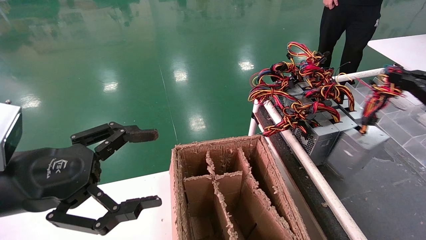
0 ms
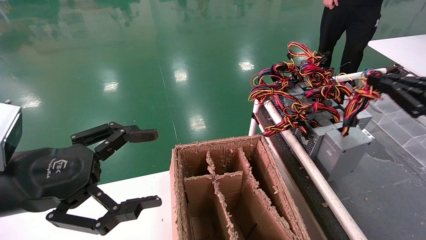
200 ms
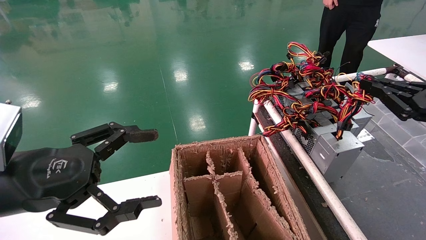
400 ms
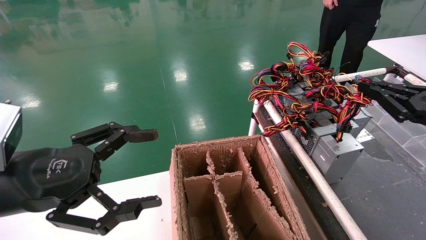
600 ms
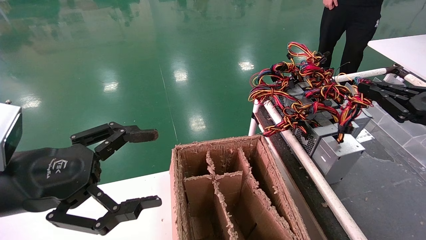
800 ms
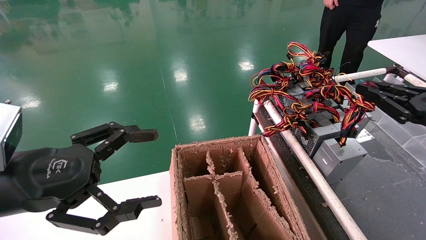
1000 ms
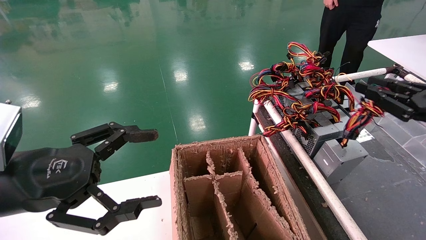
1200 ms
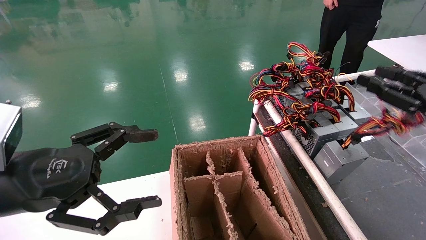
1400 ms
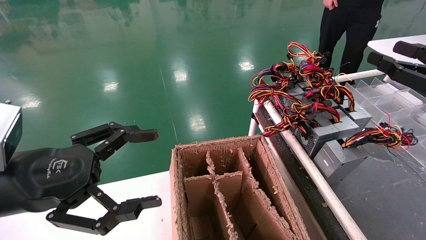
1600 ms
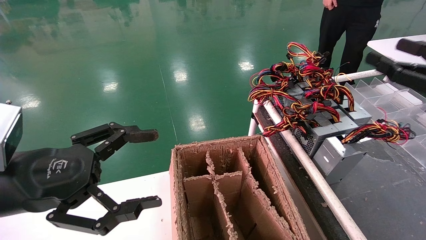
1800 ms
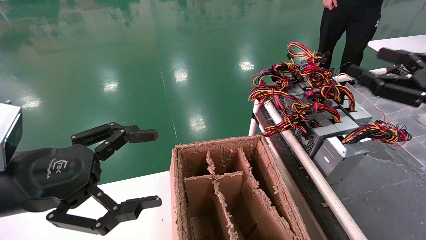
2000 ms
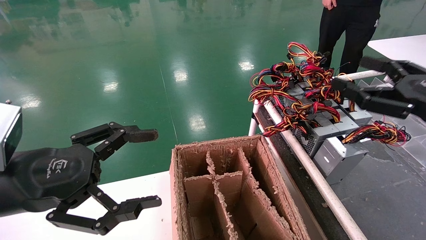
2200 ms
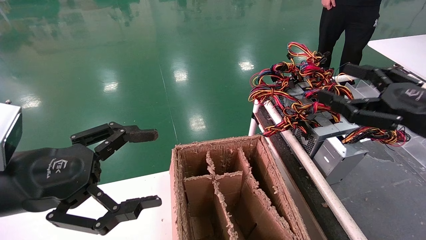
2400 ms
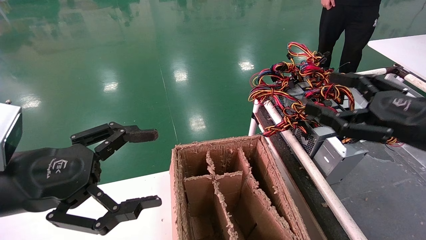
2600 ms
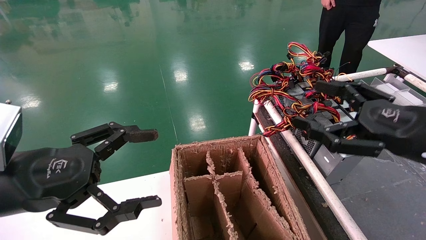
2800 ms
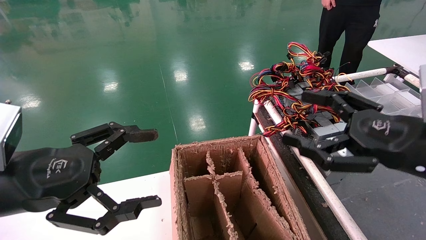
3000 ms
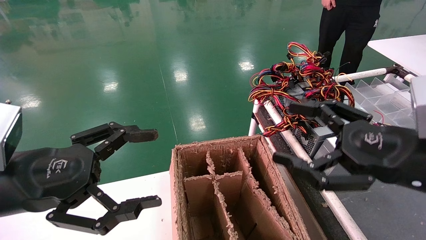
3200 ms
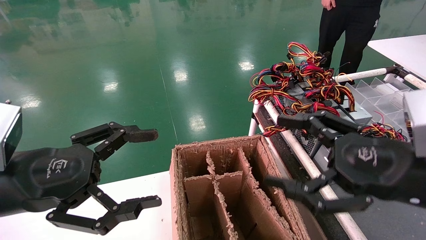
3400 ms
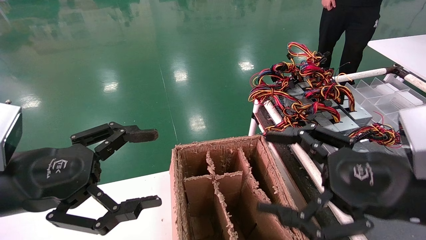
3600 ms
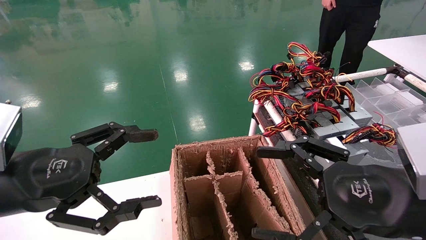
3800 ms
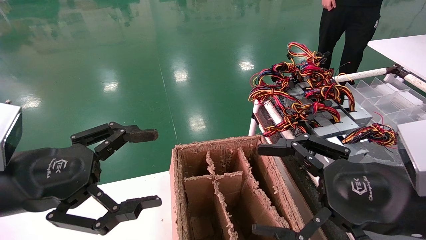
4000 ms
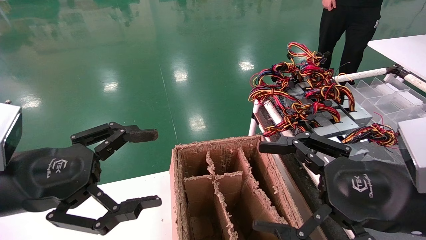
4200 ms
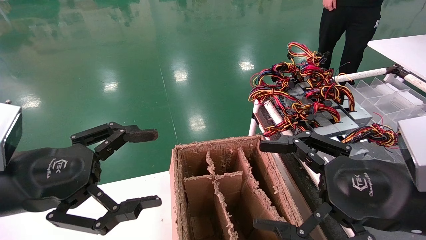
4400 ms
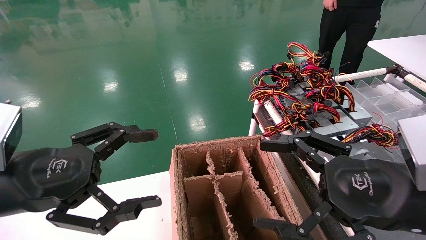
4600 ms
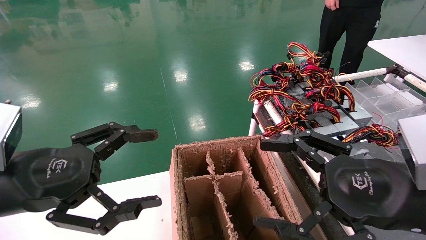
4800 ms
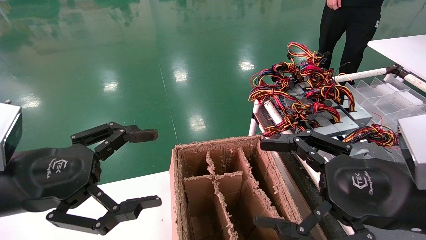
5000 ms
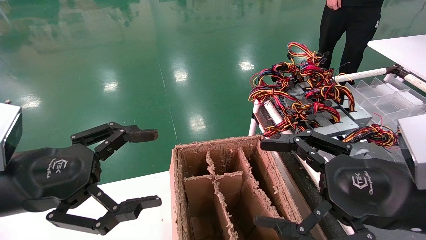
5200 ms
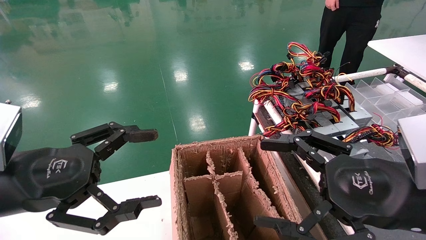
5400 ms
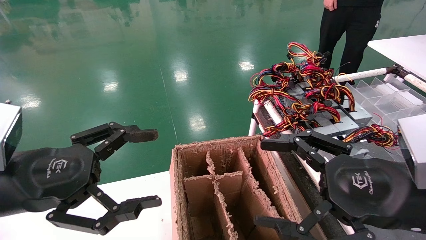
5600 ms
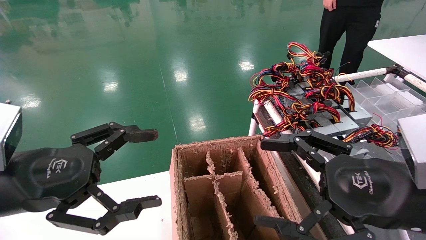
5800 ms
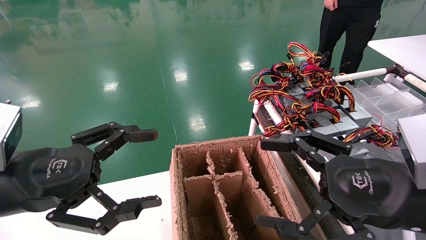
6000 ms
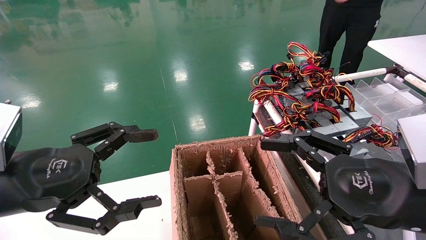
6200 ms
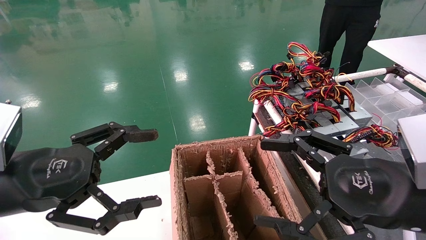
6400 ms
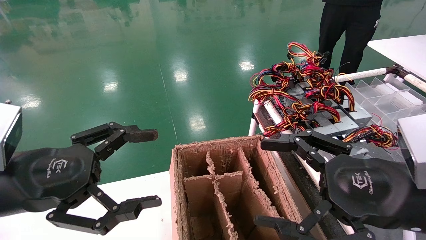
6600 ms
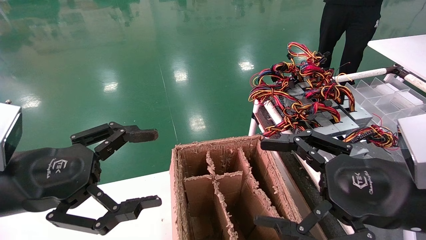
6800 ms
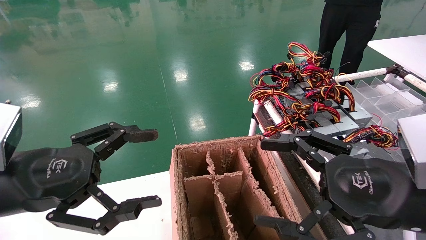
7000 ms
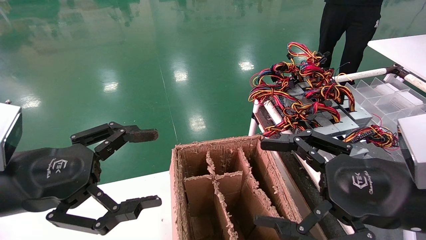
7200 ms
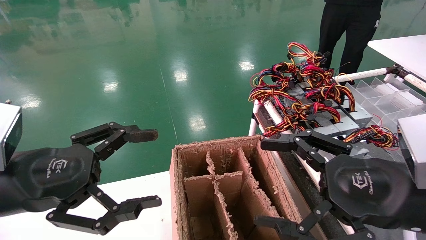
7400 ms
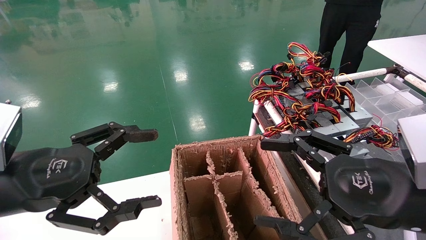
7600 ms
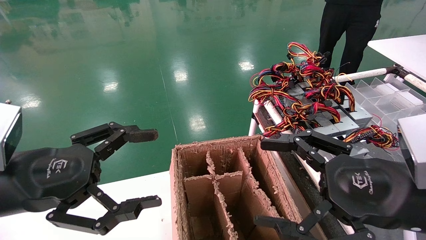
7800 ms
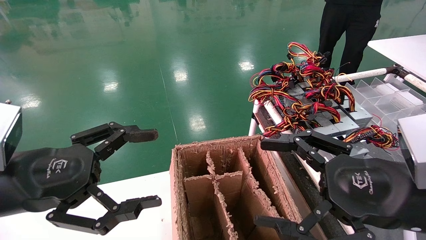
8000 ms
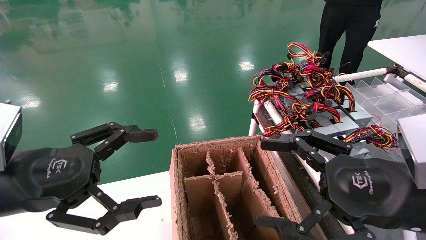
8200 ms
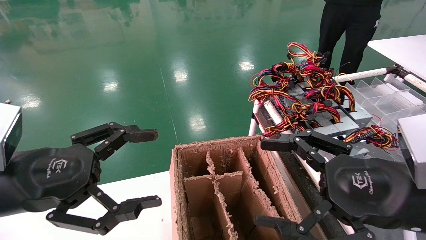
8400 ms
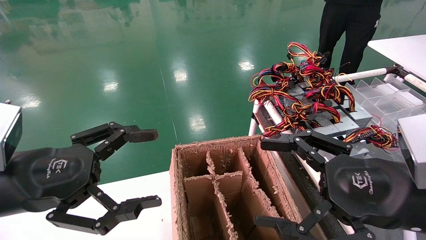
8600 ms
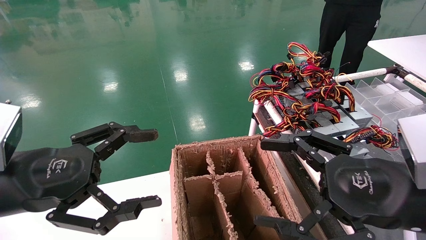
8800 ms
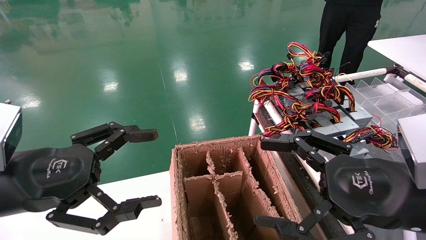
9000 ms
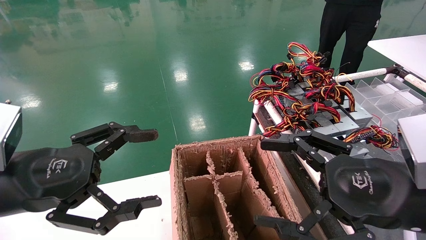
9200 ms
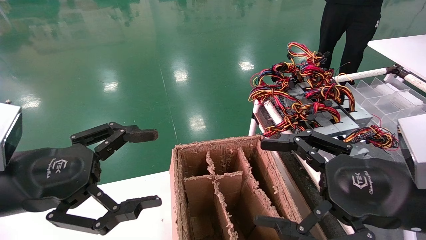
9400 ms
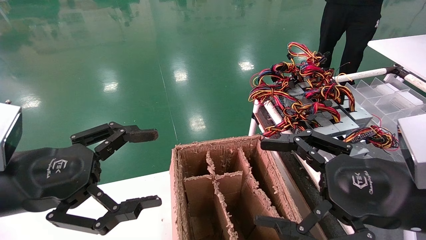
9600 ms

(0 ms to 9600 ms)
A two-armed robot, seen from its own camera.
0 ms - 1600 ms: The right gripper opens up.
1600 ms - 3200 ms: The right gripper goes approximately 15 cm to the left, and opens.
3200 ms - 4800 ms: The grippers make only small movements.
4800 ms - 9600 ms: Both grippers stay put.

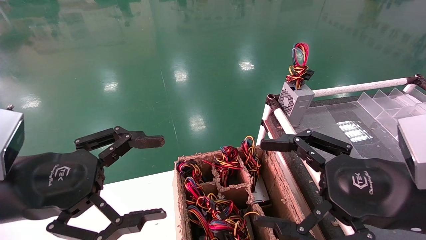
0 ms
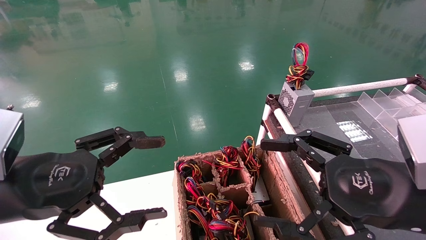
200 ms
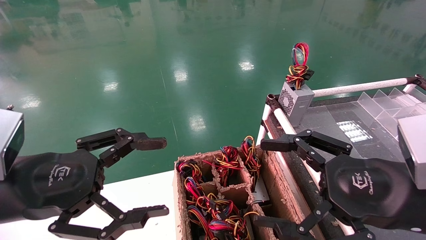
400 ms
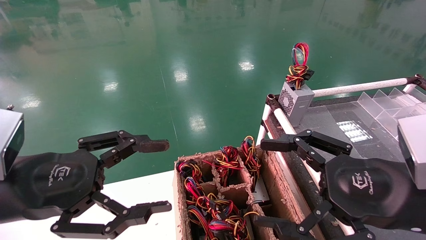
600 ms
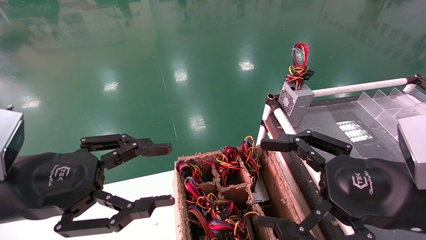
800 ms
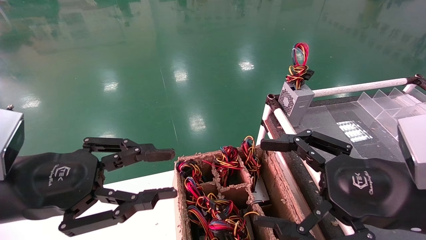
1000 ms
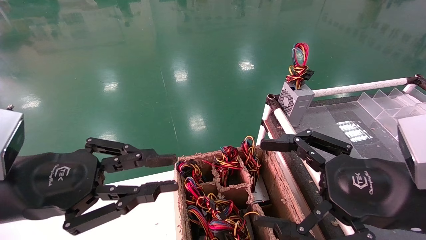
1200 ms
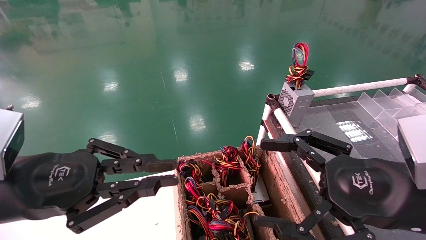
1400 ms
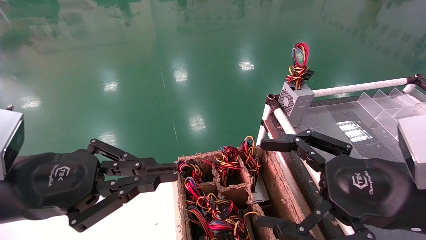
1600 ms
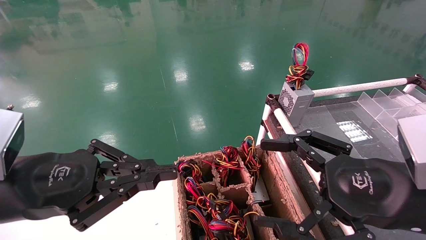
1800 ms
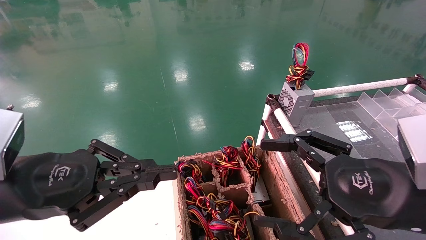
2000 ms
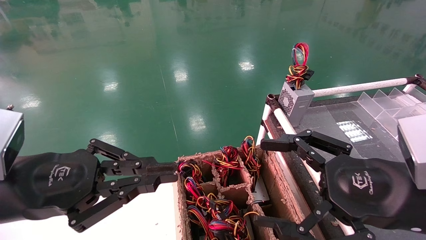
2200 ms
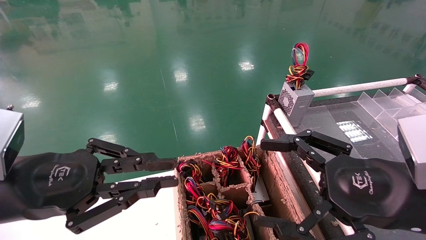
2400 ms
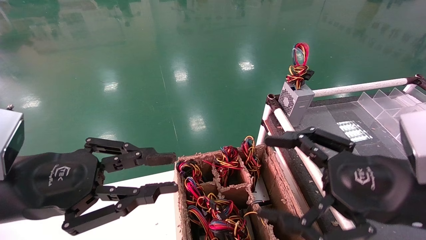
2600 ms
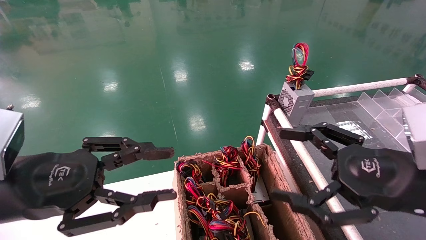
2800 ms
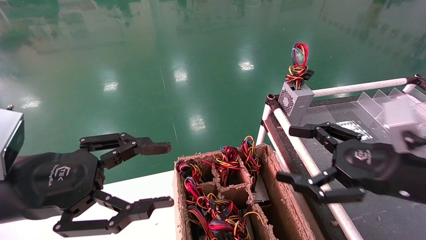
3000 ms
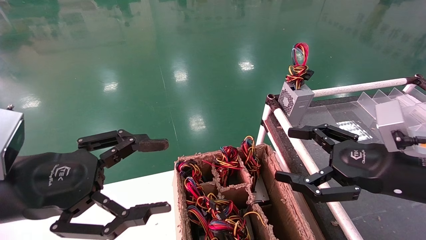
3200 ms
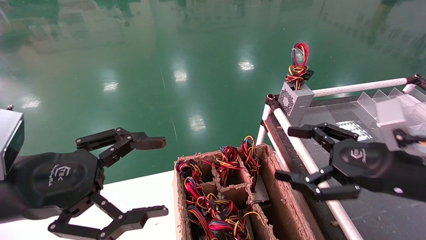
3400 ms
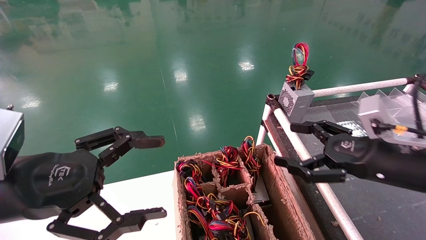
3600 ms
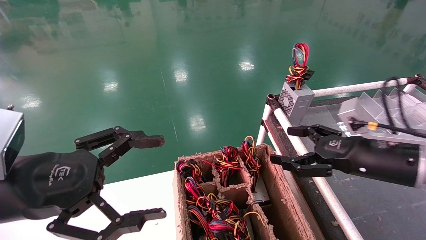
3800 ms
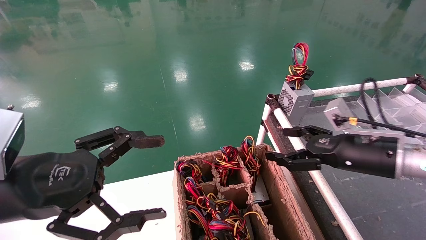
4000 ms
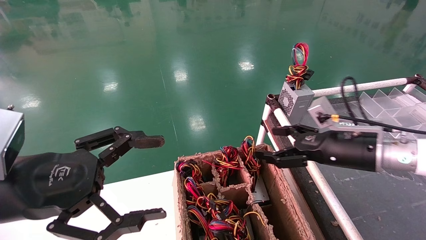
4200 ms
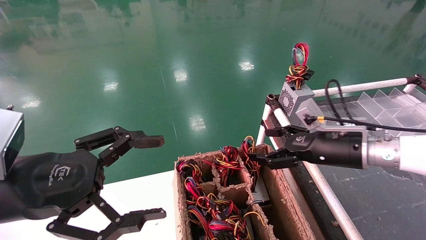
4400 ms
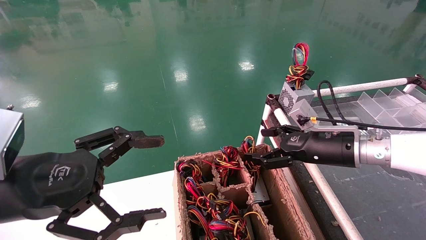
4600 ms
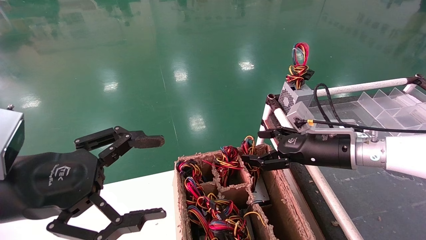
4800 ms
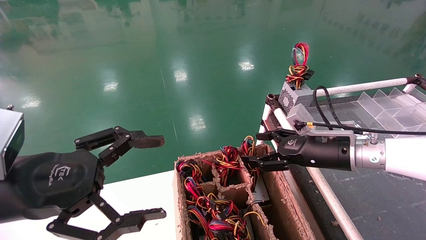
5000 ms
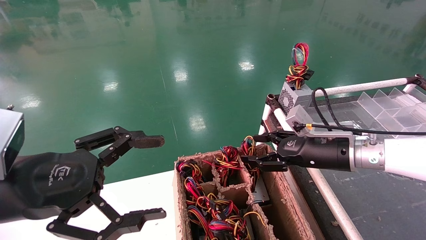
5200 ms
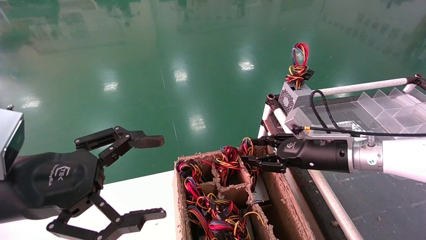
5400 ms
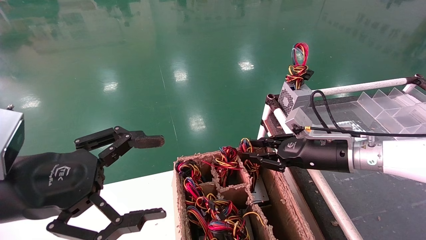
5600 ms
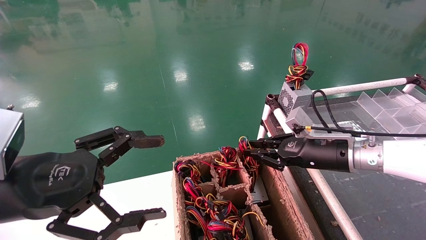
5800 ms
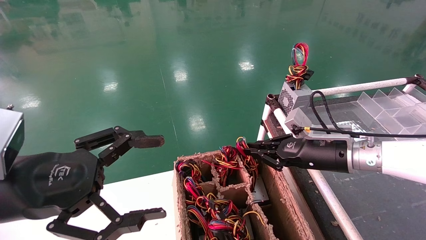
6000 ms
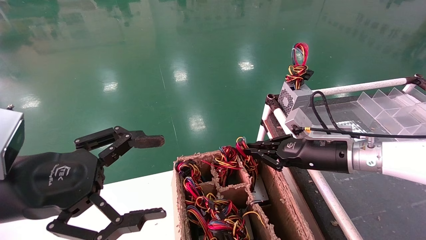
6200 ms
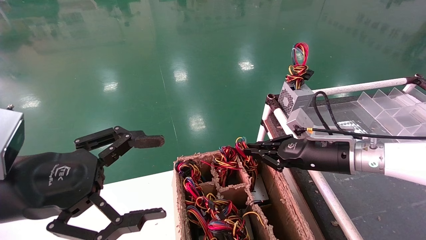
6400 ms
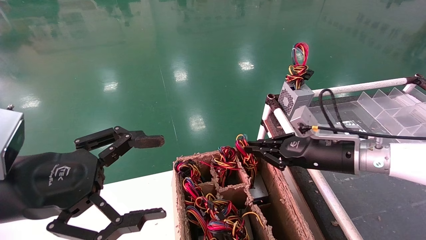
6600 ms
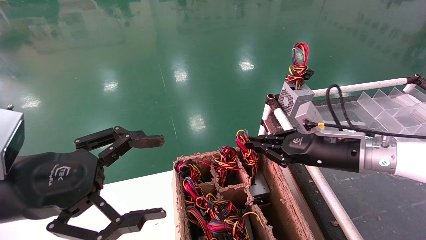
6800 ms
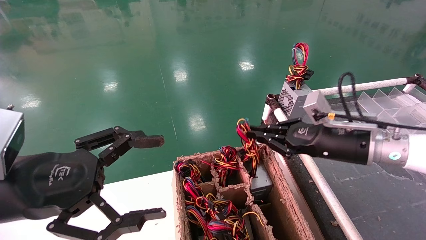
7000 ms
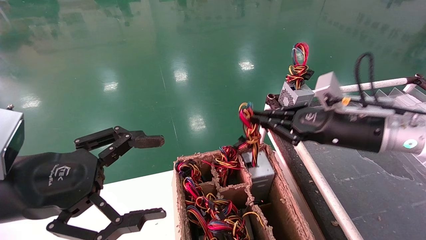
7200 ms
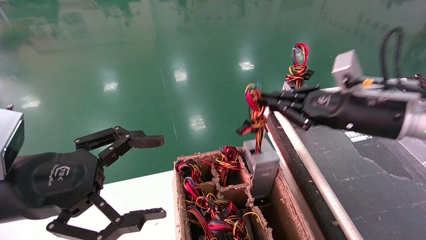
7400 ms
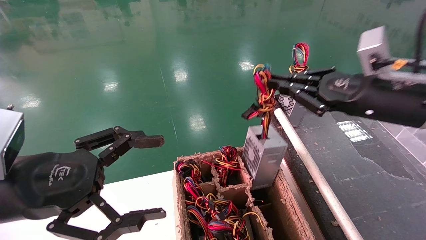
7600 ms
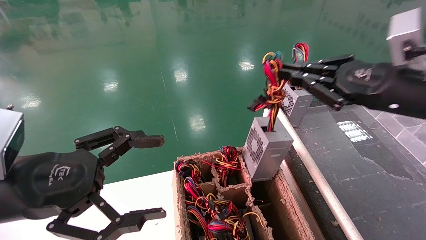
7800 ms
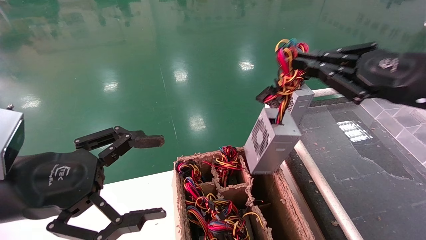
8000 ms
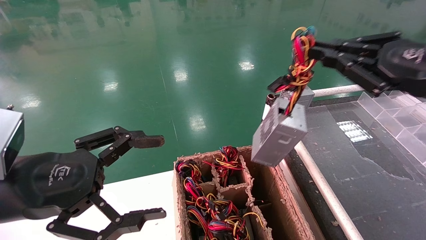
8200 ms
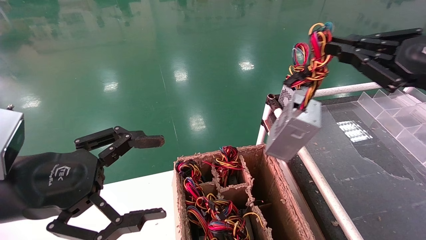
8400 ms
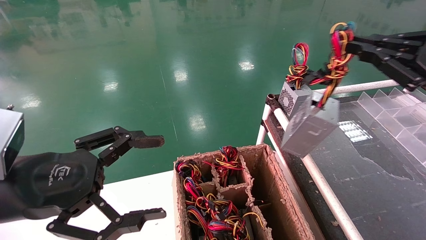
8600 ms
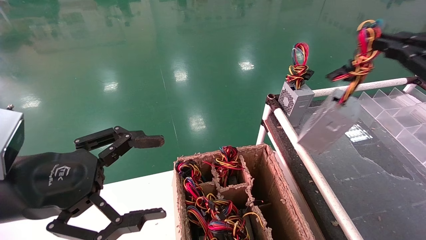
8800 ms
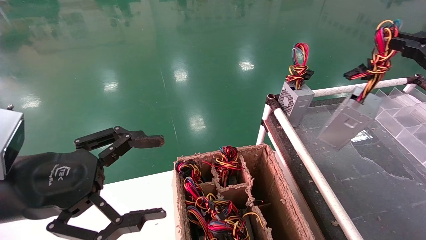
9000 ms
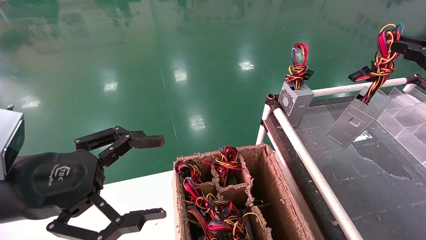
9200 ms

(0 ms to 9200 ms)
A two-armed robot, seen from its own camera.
Step, 1800 ms - 5800 ms: Grab and lift the power supply from the large box.
0 ms - 1600 ms: The left gripper closes.
1600 ms - 3000 ms: The left gripper opens. Meanwhile the right gripper moves about 5 cm.
3000 ms - 4600 ms: The right gripper moves forward, roughly 15 cm, while the left gripper opens.
4600 ms - 6200 ms: The right gripper closes.
6200 ms - 7600 ms: The right gripper moves upward and backward, about 15 cm.
7600 ms - 9200 ms: The right gripper is displaced to the right and backward by roughly 15 cm.
